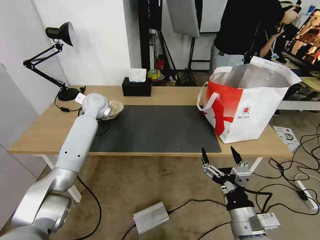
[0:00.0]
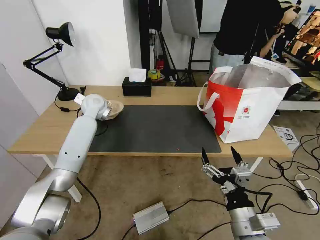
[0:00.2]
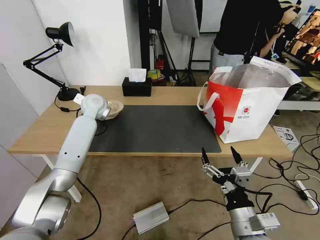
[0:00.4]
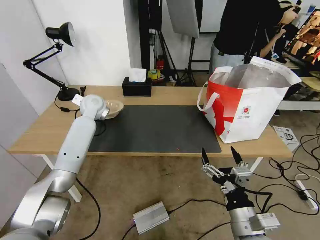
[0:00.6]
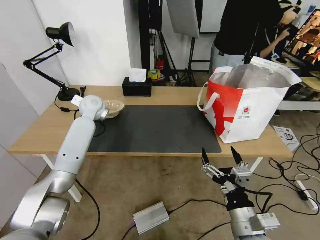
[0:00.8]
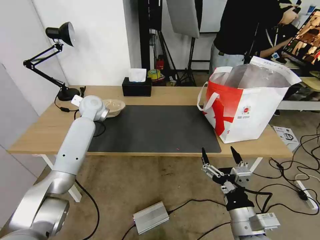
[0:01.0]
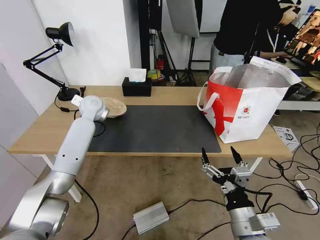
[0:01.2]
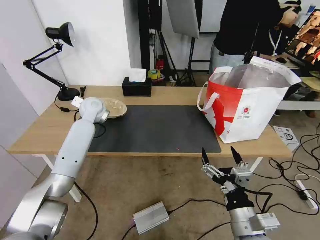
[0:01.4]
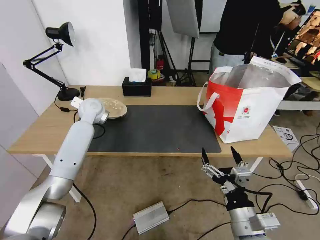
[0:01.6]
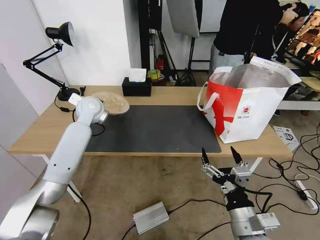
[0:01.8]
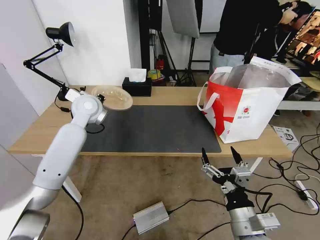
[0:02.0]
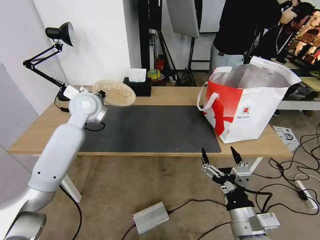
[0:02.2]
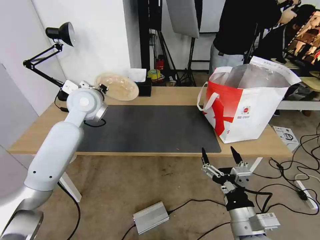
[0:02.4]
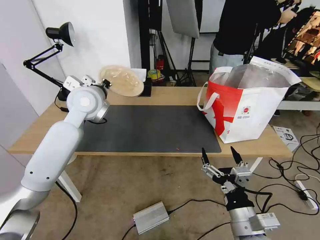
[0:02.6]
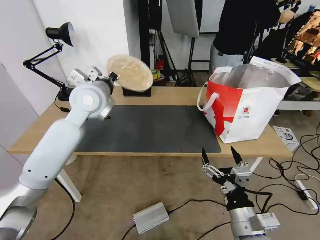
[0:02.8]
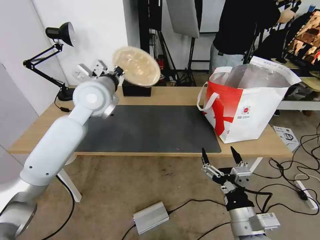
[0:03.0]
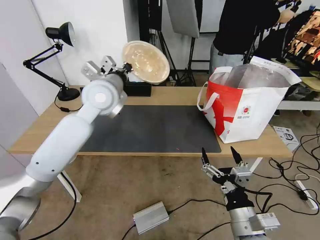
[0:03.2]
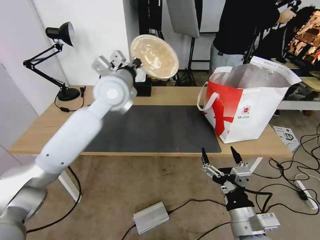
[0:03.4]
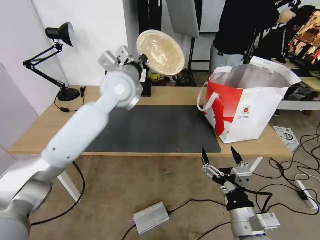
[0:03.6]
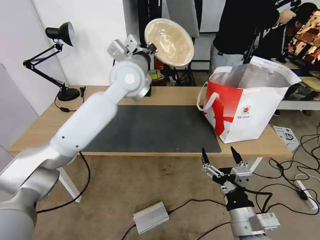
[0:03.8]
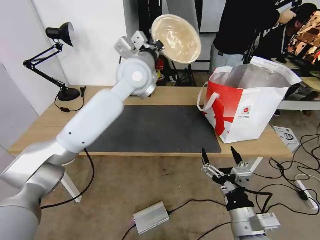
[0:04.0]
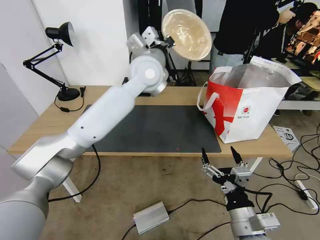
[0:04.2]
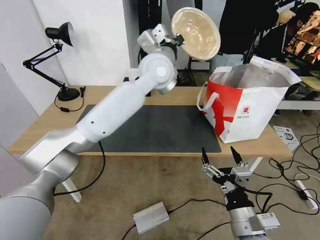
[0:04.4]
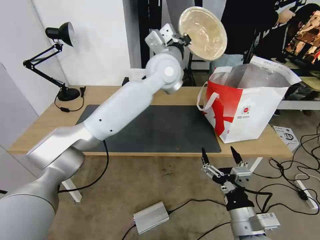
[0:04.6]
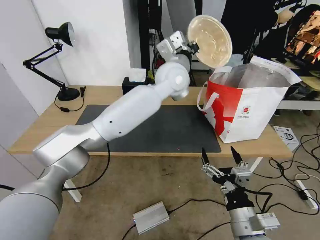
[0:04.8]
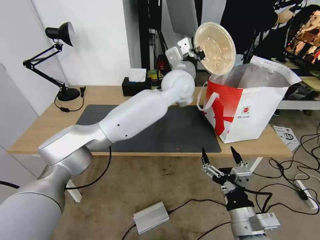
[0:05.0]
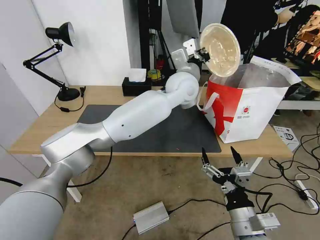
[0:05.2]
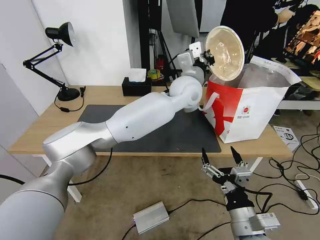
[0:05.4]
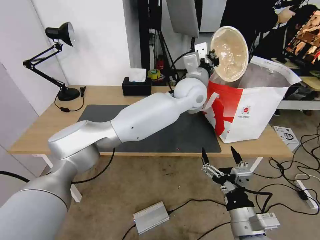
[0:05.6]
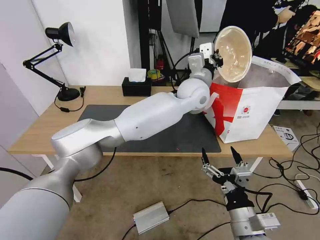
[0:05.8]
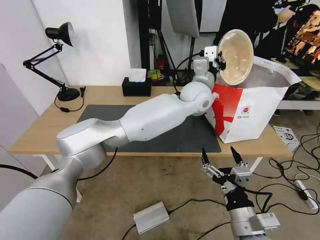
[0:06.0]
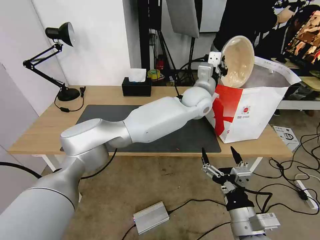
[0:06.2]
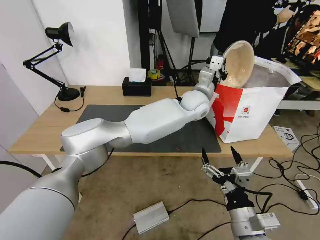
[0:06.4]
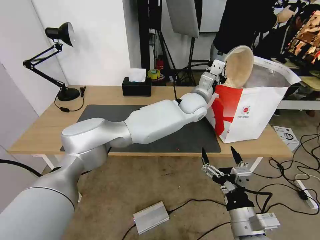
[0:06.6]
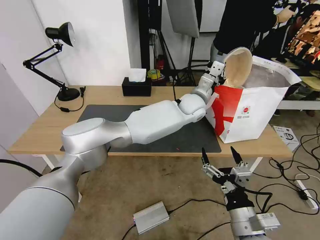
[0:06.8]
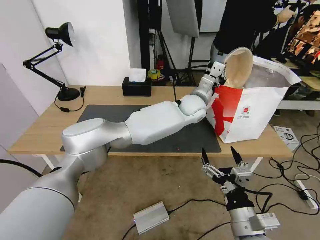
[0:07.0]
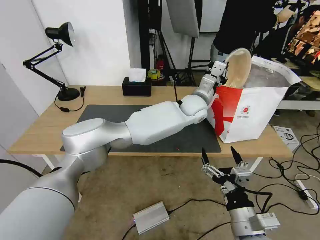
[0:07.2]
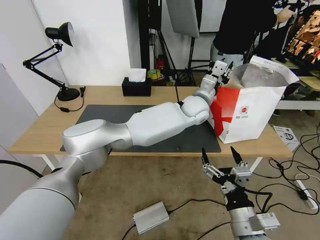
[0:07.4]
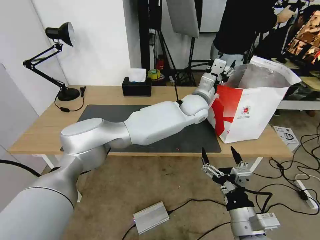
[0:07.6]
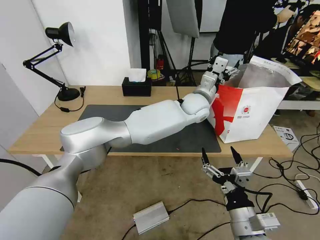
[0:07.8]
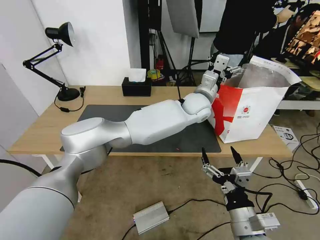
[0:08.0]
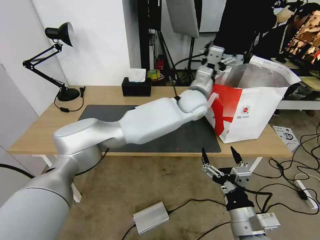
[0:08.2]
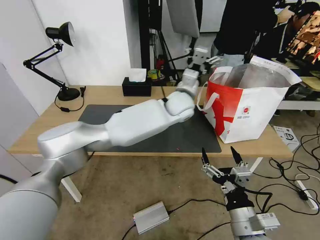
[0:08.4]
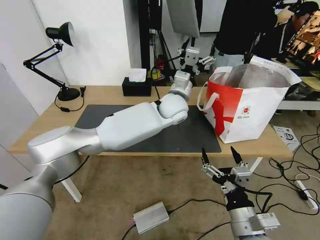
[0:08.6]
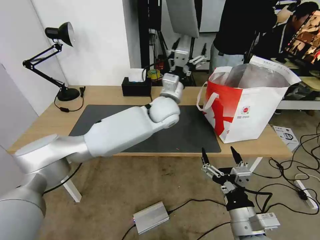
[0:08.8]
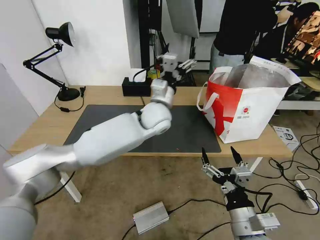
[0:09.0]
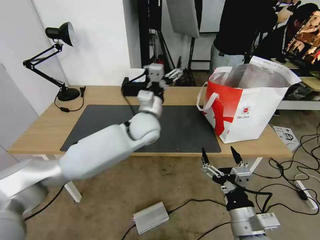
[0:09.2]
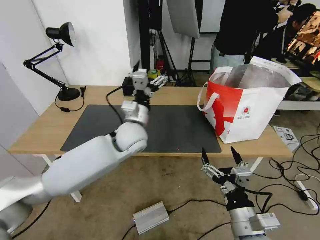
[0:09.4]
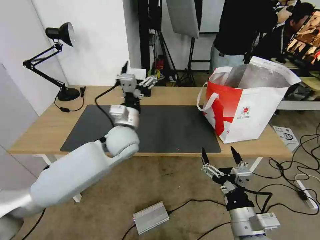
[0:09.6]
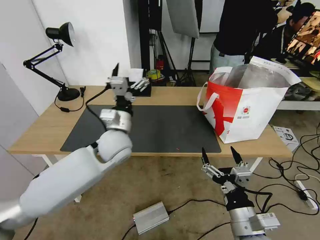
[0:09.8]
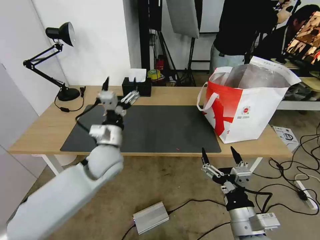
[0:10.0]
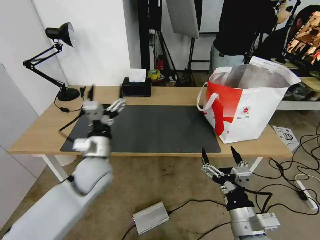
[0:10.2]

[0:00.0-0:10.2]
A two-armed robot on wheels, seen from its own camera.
Task of the whole recording: Pick up the trash from the table and place it into the takeout bag.
0:00.0 to 0:01.4: The left gripper closes up.
0:01.4 to 0:03.0: The left gripper shifts roughly 20 cm upward, backward and to the right.
0:03.0 to 0:04.4: The left gripper goes roughly 15 cm to the right.
0:04.4 to 0:05.8: The left gripper travels to the right and downward by approximately 15 cm.
0:05.8 to 0:07.2: The left gripper travels downward by about 5 cm.
0:07.2 to 0:08.8: The left gripper shifts some 10 cm to the left, and opens up.
0:08.8 to 0:10.2: The left gripper heads to the left, backward and downward, covering roughly 30 cm.

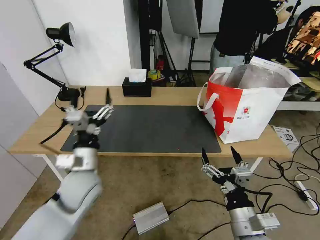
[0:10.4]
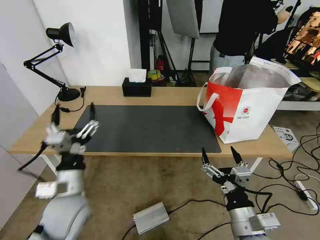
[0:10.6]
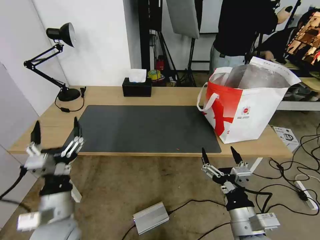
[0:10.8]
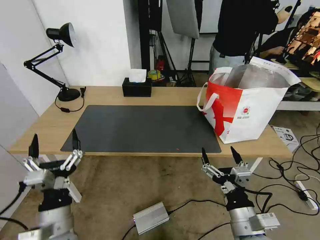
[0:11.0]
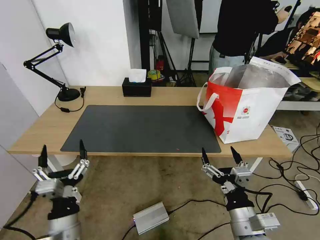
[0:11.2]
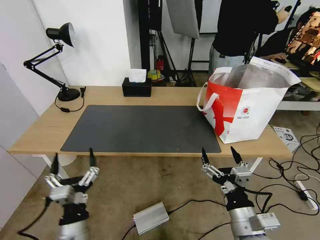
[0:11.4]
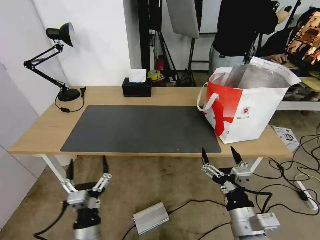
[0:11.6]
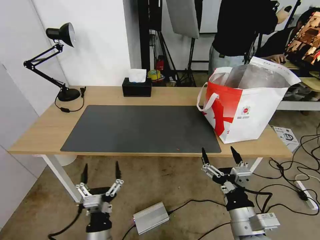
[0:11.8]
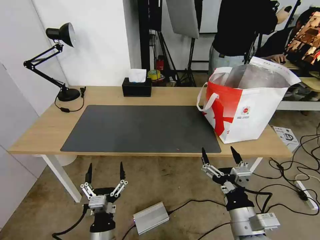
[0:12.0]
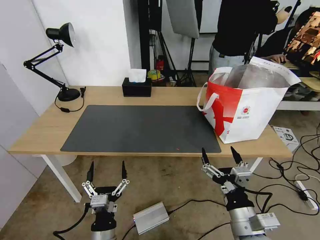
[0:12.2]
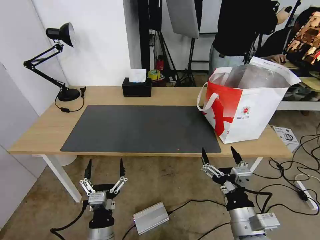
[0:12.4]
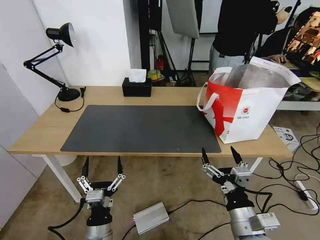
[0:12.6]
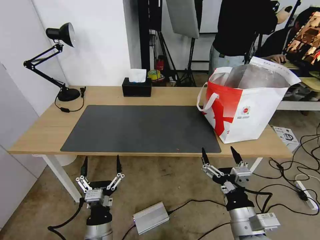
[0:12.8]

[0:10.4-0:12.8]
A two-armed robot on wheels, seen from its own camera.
Task of the whole recording: Pick up the trash from the table and place it into the takeout bag.
0:10.4 to 0:11.6: The left gripper goes about 20 cm backward and downward.
0:11.6 to 0:12.8: The grippers stay close to where they were, moving slightly.

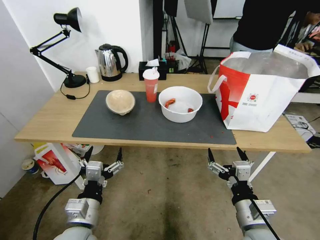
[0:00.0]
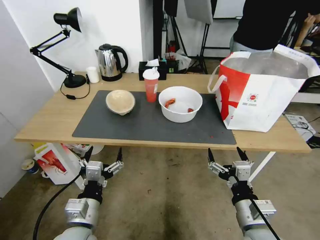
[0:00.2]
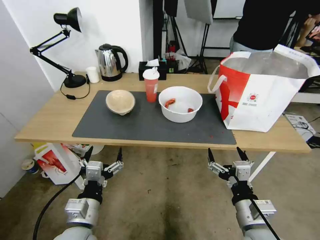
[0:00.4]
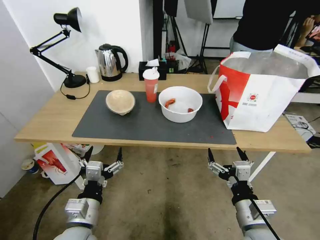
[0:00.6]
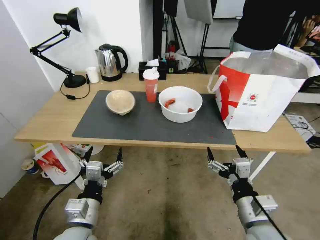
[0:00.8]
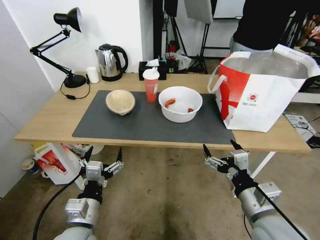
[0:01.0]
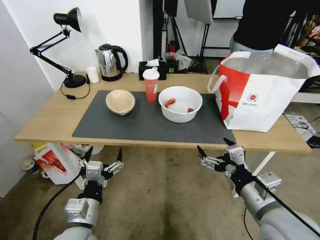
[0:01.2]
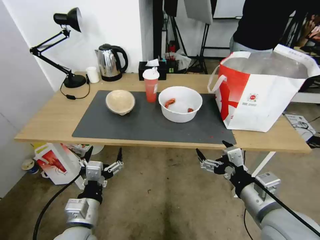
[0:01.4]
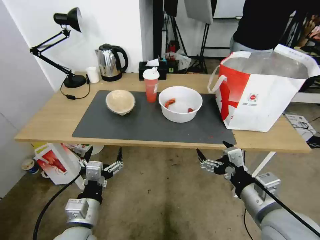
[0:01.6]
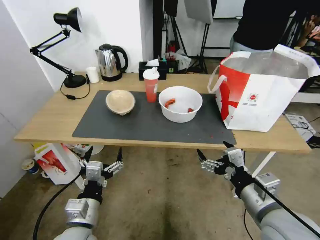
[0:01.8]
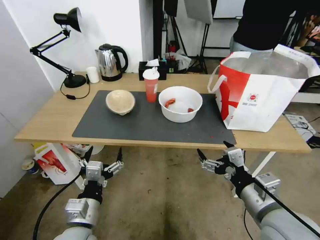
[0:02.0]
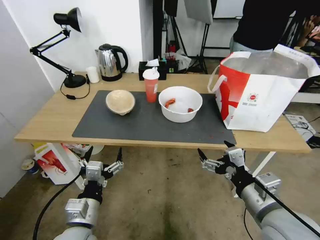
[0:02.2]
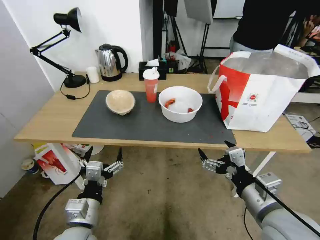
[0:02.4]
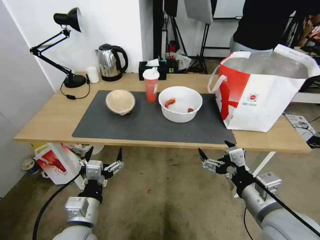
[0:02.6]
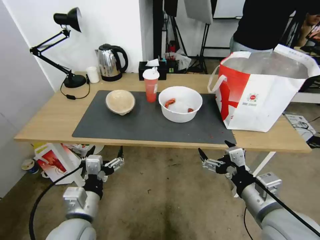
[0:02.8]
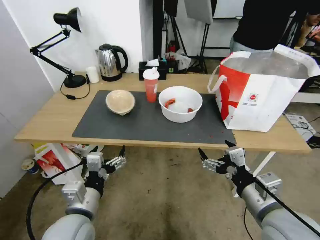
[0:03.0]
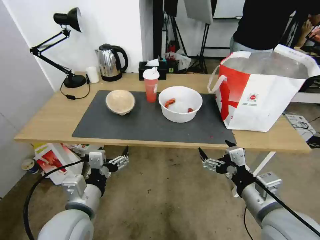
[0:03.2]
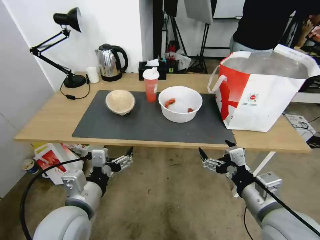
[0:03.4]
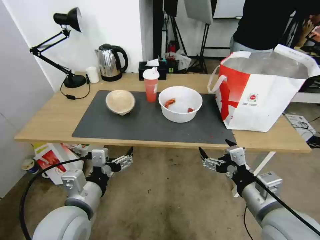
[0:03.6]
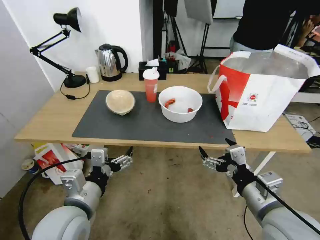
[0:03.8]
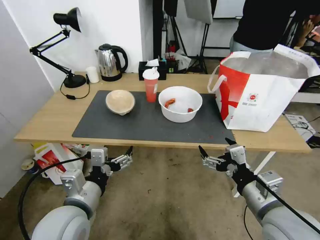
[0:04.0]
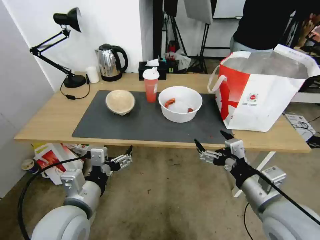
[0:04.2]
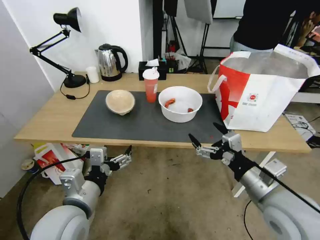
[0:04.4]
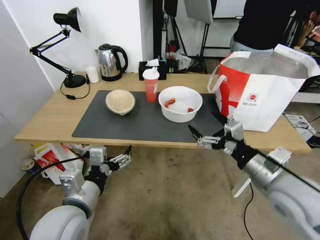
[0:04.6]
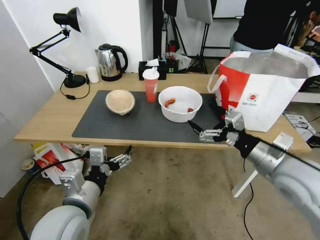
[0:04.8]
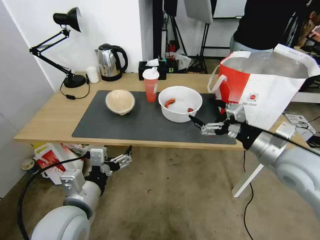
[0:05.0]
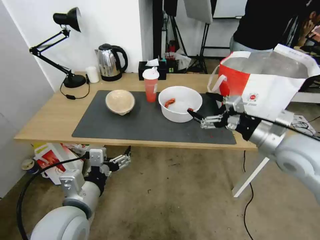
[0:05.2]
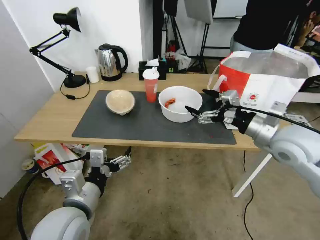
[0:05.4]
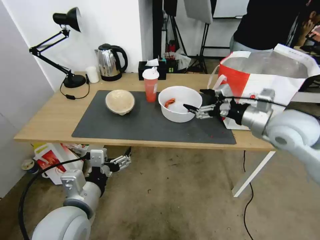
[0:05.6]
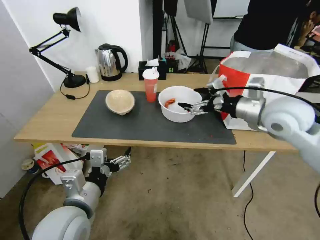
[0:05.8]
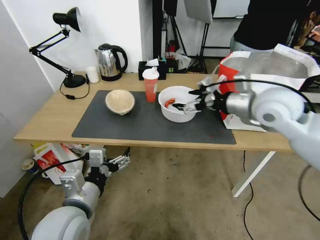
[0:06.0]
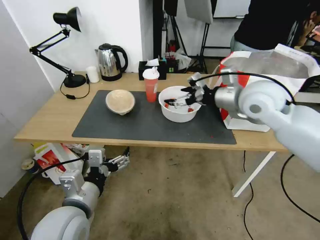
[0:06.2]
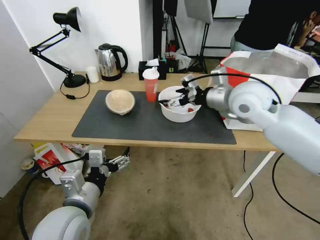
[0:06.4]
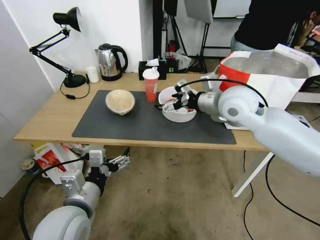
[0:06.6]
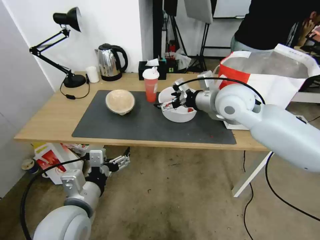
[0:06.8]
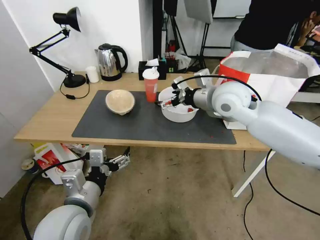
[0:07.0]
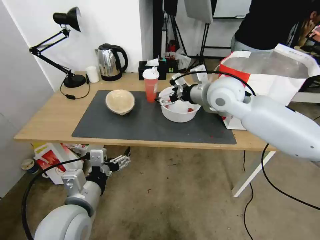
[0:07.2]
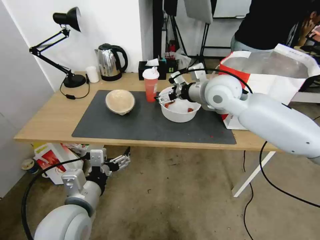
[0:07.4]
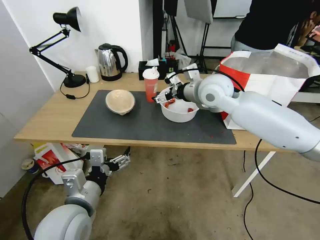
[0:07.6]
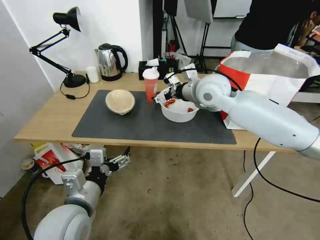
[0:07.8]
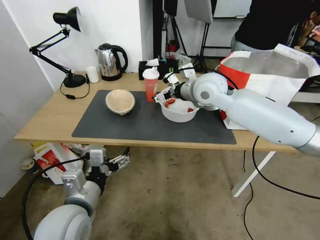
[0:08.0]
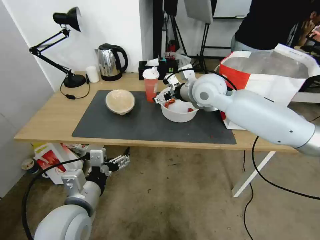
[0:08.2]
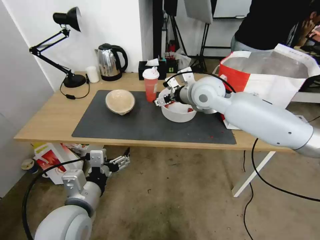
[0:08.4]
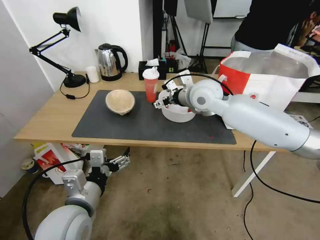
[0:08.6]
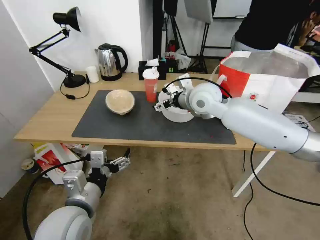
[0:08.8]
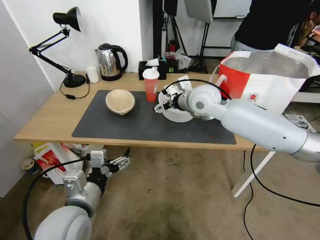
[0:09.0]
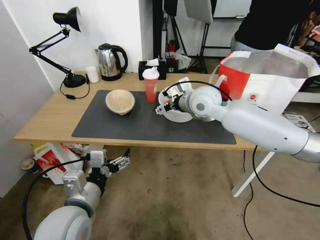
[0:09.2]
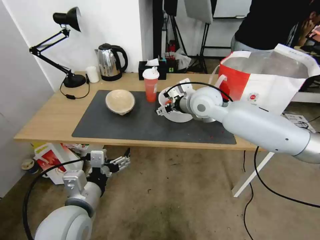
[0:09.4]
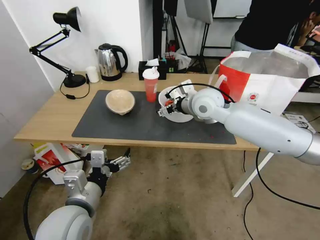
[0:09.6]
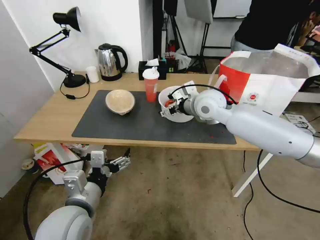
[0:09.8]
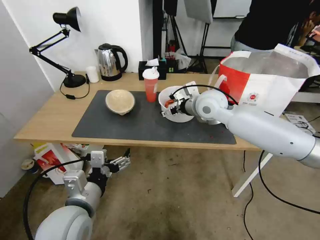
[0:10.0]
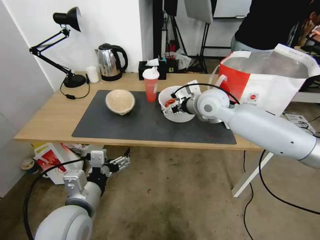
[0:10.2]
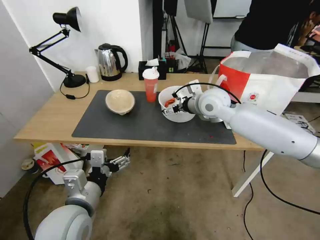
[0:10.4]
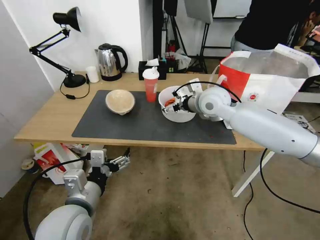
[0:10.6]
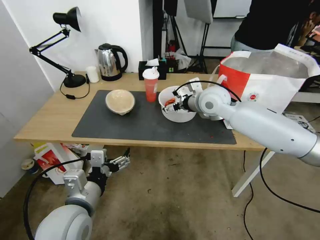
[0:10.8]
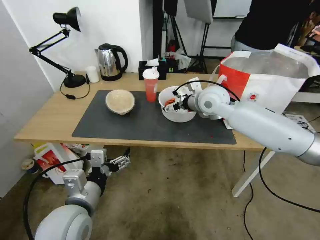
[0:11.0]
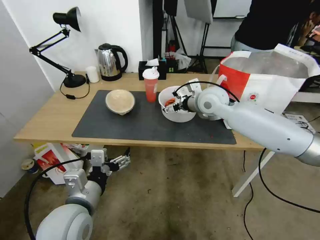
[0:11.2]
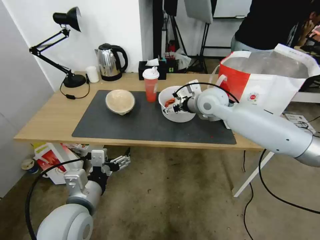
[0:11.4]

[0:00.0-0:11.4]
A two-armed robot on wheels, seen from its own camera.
Task of the whole recording: Pick up the trash from the table and place it into the takeout bag.
0:01.4 to 0:02.8: The grippers make only small movements.
0:02.8 to 0:04.2: The left gripper is displaced upward by approximately 5 cm.
0:04.2 to 0:05.6: The right gripper goes about 20 cm forward and upward.
0:05.6 to 0:07.2: The right gripper is displaced to the left and forward by some 15 cm.
0:07.2 to 0:08.6: The right gripper shifts by approximately 5 cm.
0:08.6 to 0:11.4: The grippers make only small movements.
